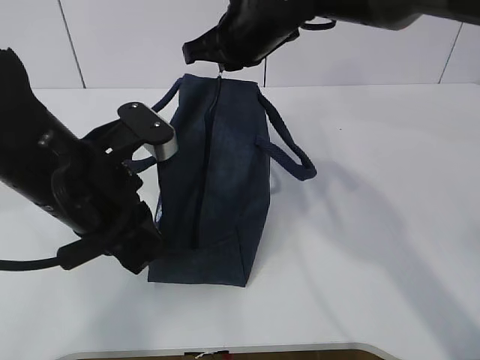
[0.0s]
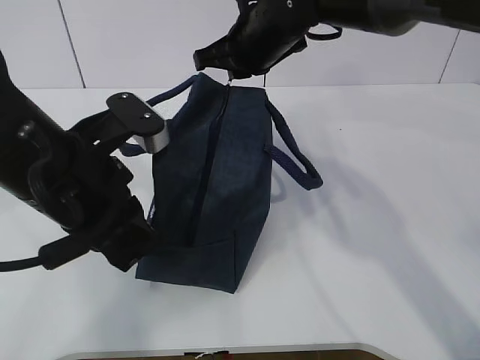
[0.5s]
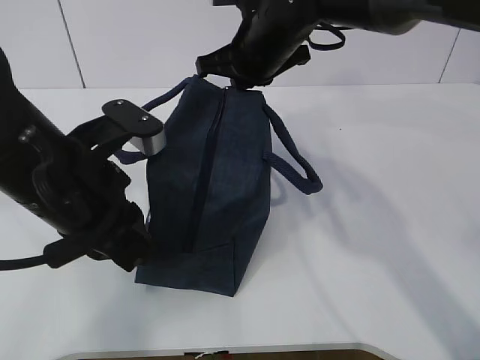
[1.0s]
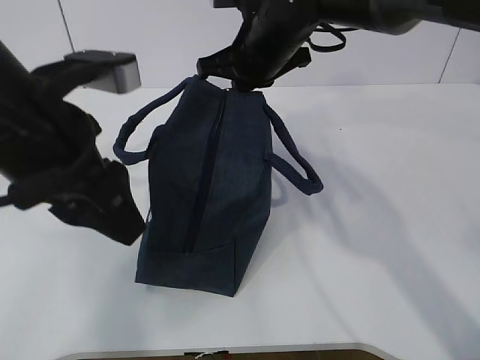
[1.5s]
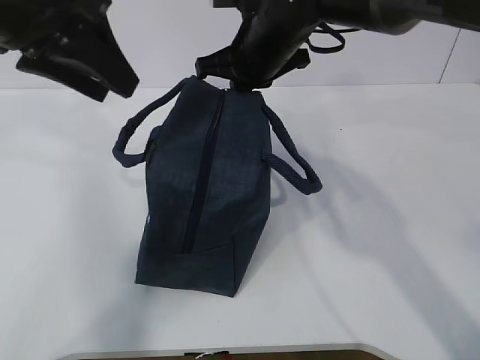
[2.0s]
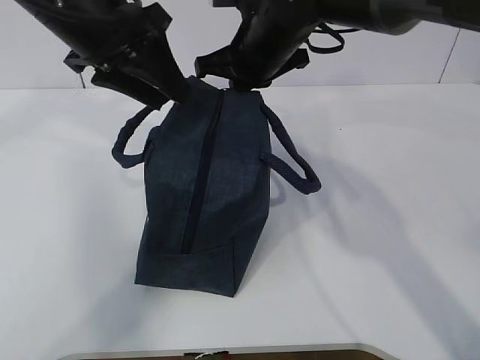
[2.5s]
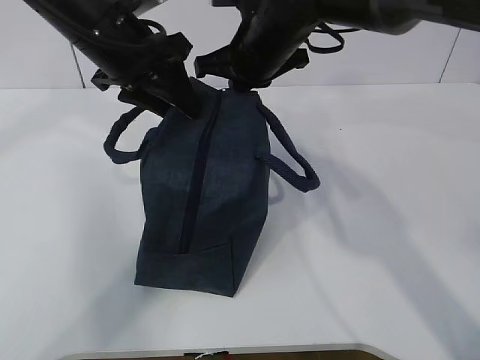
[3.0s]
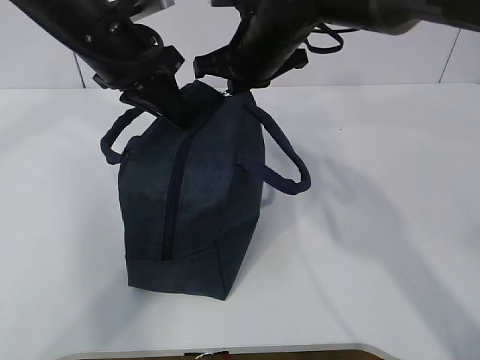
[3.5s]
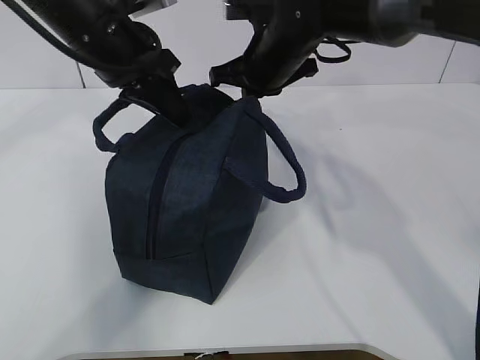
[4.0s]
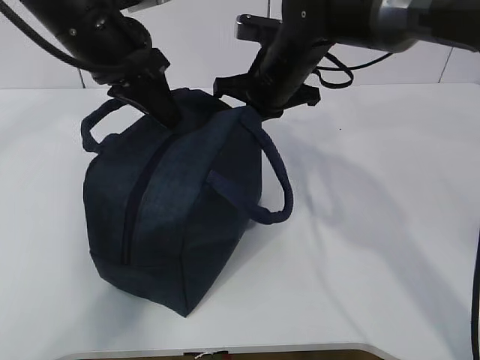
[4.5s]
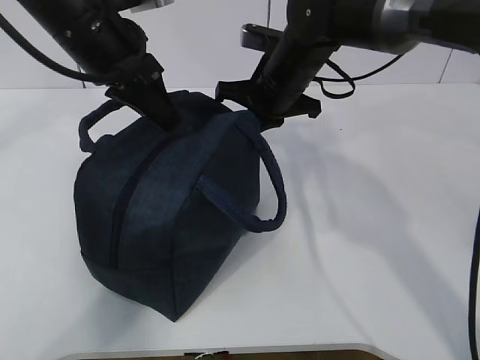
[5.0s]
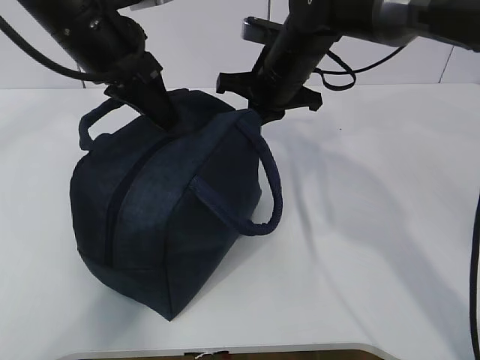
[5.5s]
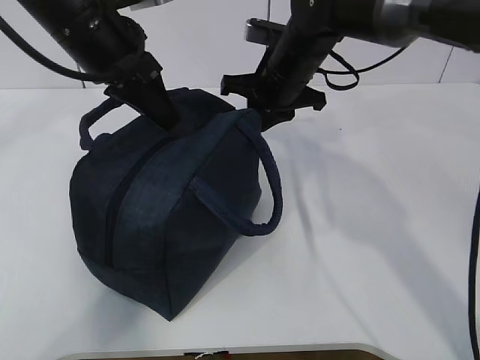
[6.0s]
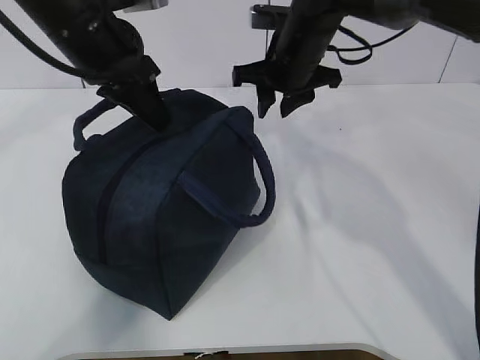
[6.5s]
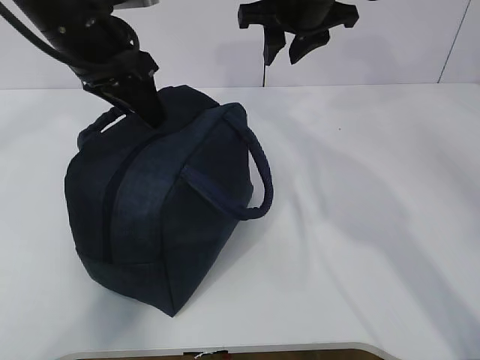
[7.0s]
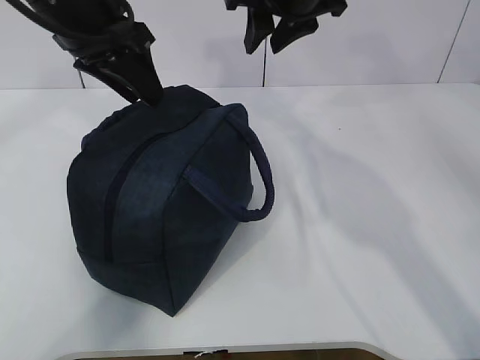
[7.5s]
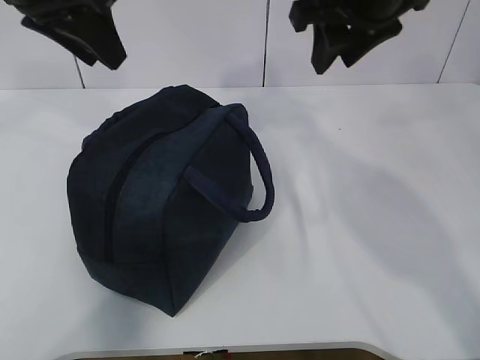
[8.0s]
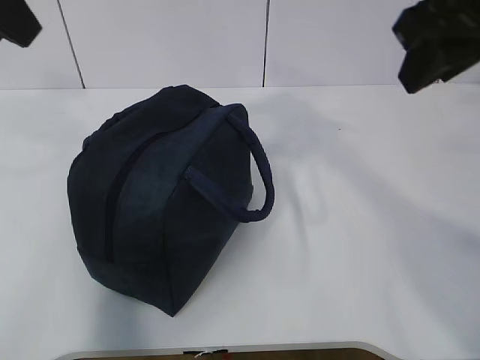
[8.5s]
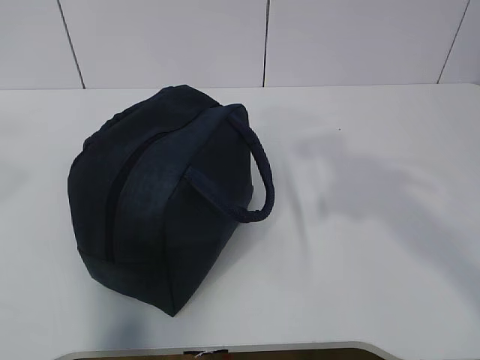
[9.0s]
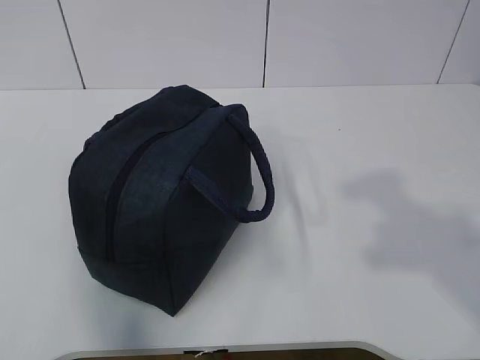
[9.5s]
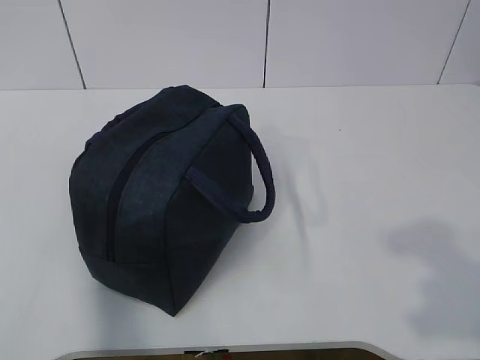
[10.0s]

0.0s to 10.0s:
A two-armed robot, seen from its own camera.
0.0s to 2.0s: The left gripper goes some 15 cm upward, and opens its fingers.
2.0s to 4.0s: The left gripper is displaced forward and downward by some 10 cm, and closes up.
4.0s to 6.0s: The right gripper opens.
6.0s to 8.0s: The left gripper shifts approximately 5 cm upward, and opens. Meanwhile the right gripper goes roughly 15 cm upward and backward.
8.0s to 10.0s: The left gripper travels backward and to the left by some 40 cm; the right gripper moves backward and to the right, some 40 cm.

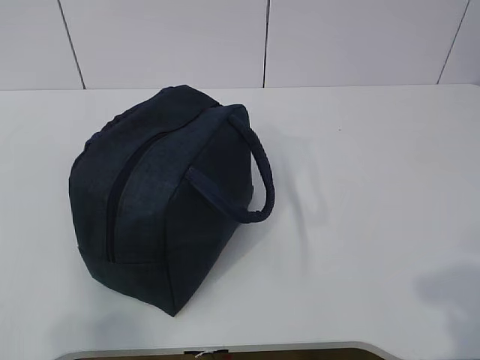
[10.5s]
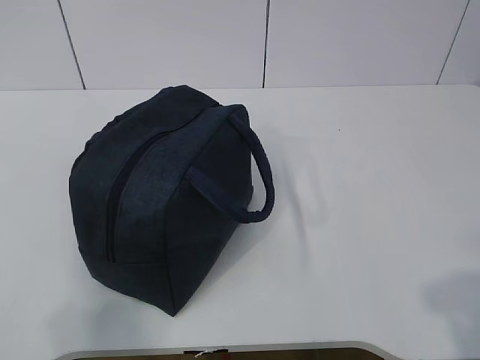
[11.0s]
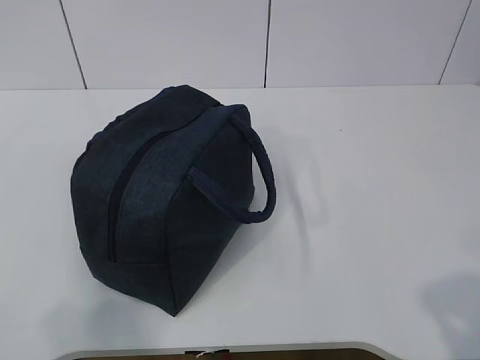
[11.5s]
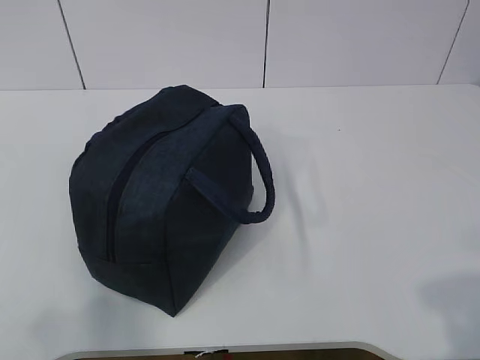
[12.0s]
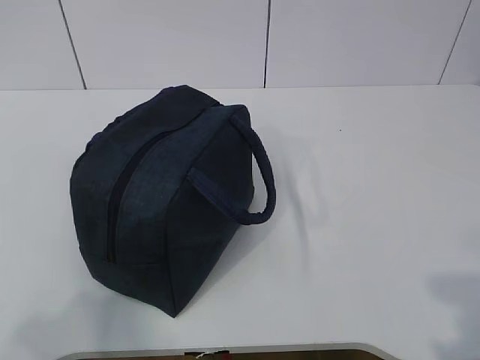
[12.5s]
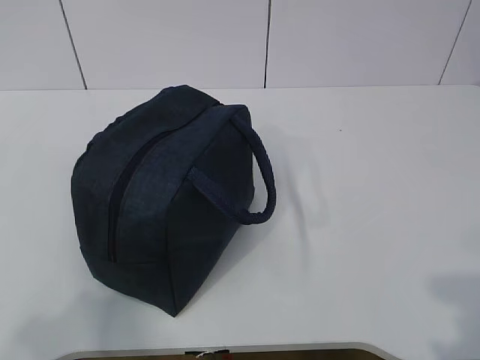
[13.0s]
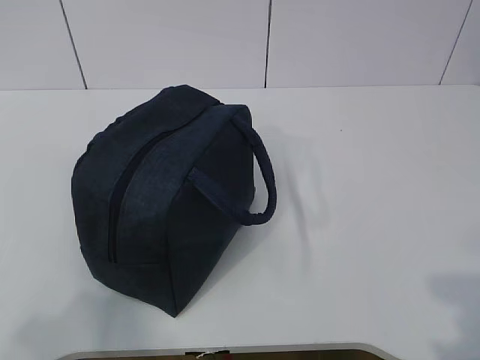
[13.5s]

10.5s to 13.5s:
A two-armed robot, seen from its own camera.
12.0s to 13.5s: The grippers move only a little.

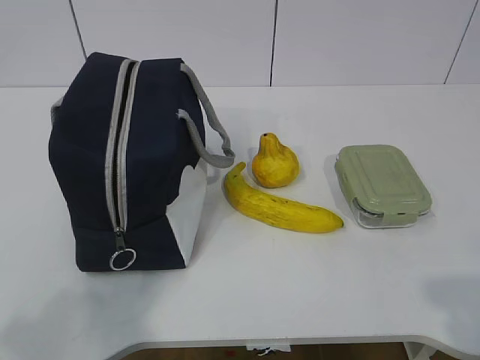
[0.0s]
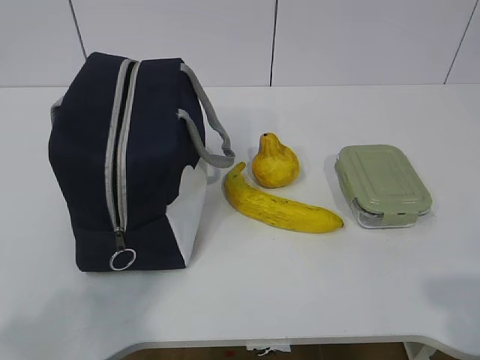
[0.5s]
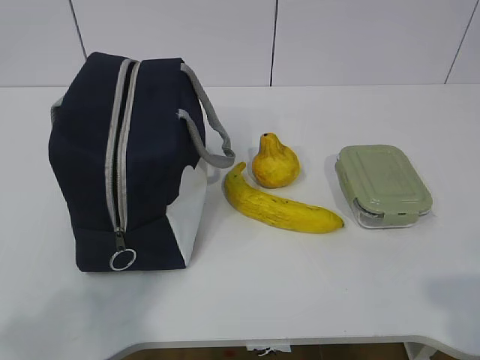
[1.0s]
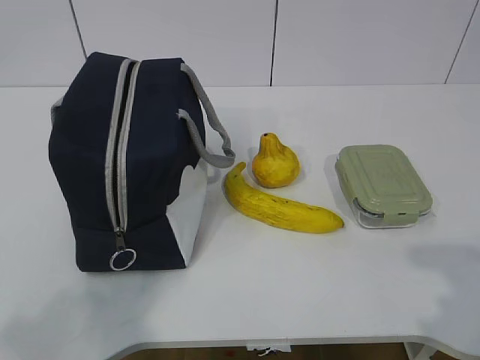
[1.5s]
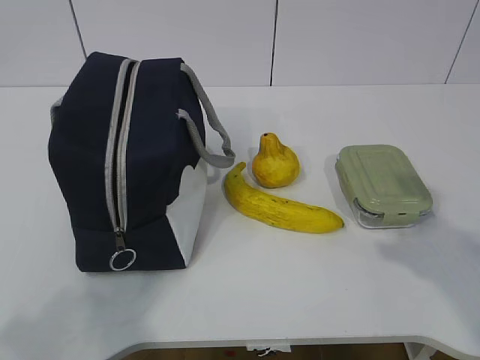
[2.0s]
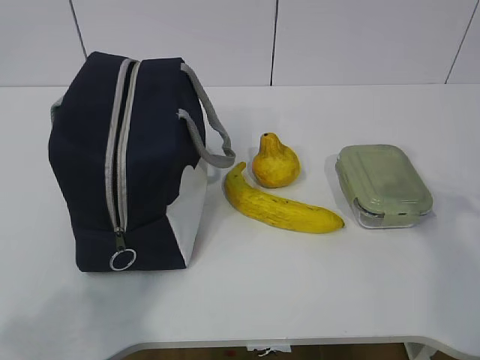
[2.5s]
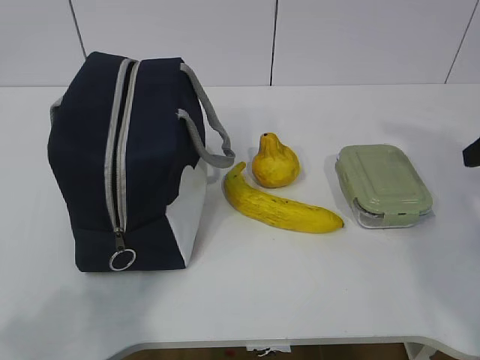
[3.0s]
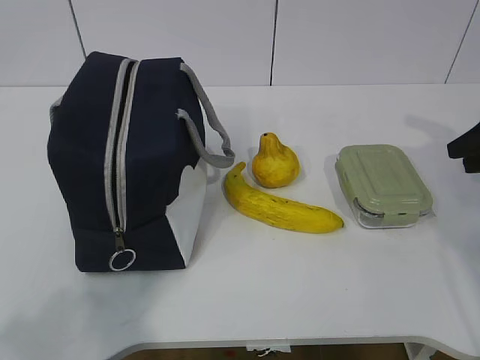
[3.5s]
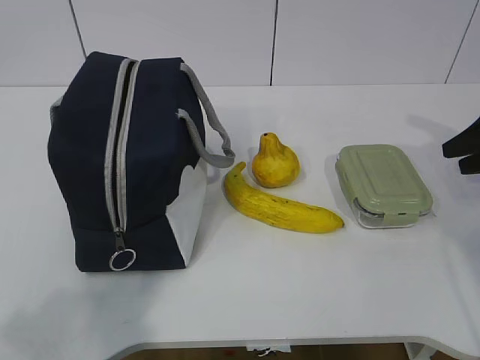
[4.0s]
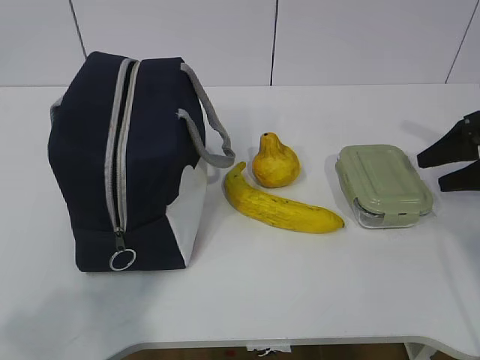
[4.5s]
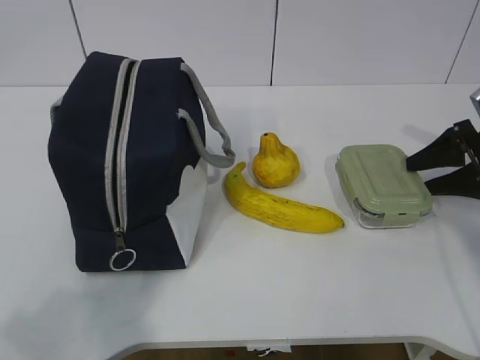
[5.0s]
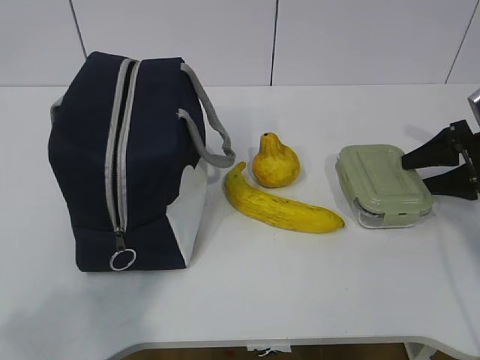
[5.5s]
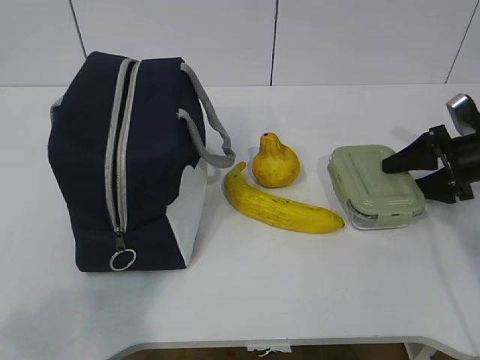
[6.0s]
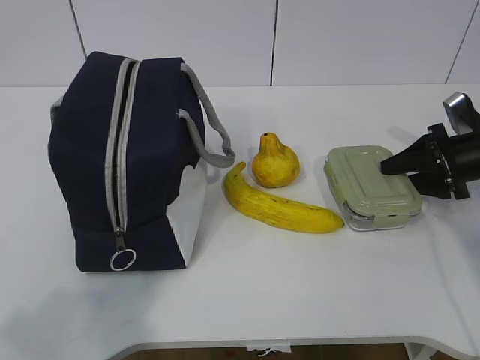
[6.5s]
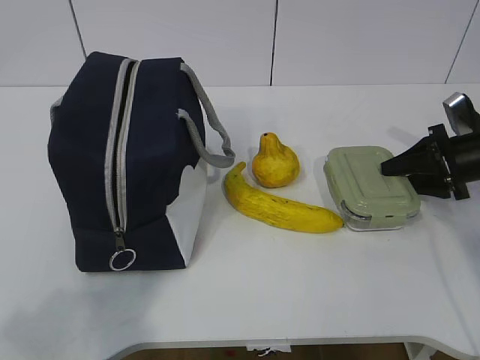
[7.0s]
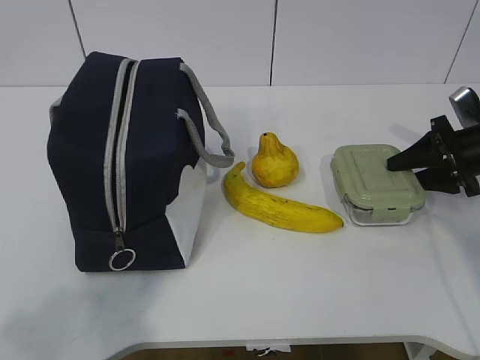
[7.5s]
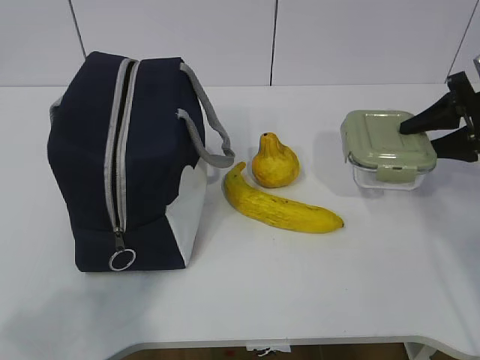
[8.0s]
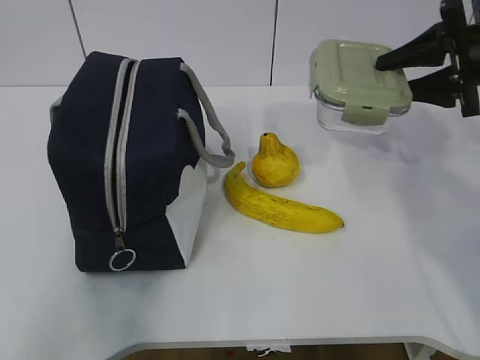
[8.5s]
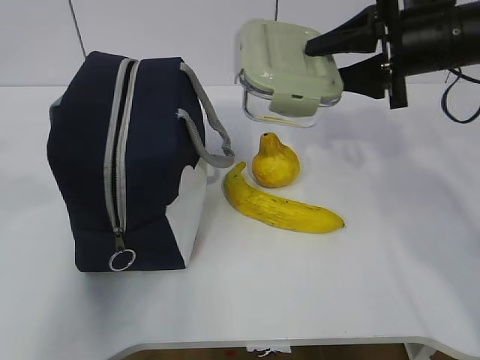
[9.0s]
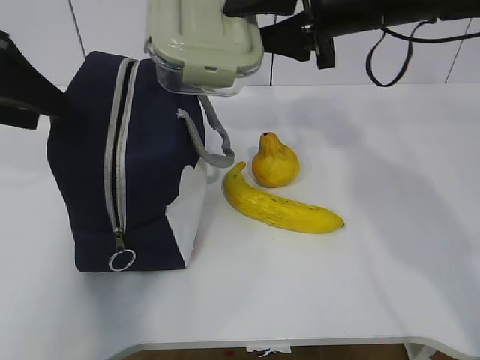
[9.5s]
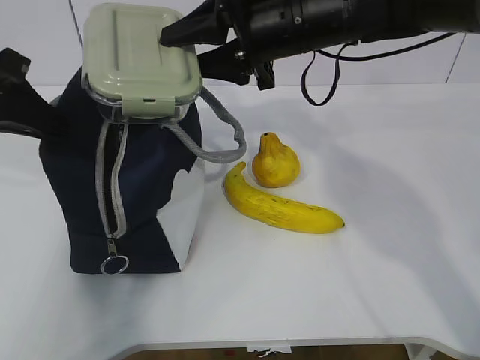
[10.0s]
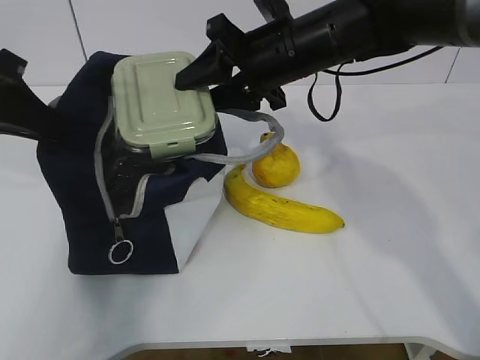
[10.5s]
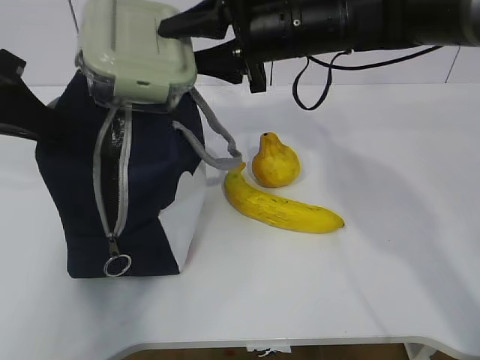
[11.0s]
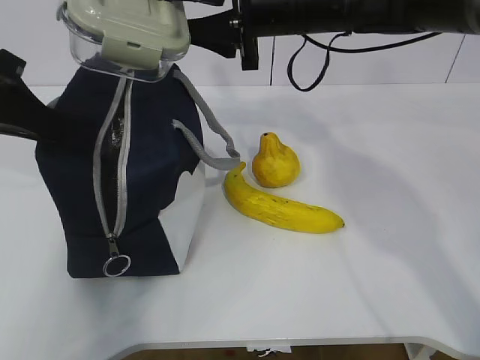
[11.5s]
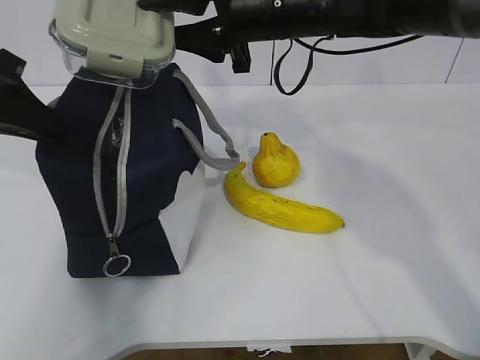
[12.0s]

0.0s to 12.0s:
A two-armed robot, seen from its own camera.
Step, 0.0s to 7.0s: Grasp the box with the right gripper.
2.0s to 4.0s: The right gripper heads forward and to the right, covering about 25 cm.
4.0s to 6.0s: The right gripper moves downward, approximately 5 cm.
6.0s to 8.0s: The right gripper travels upward by approximately 10 cm, and closes up.
8.0s to 10.0s: The left gripper travels forward by roughly 30 cm, and closes its fingers, while the right gripper shifts about 30 cm to the left.
10.0s to 12.0s: There are only small adjustments of the grippers.

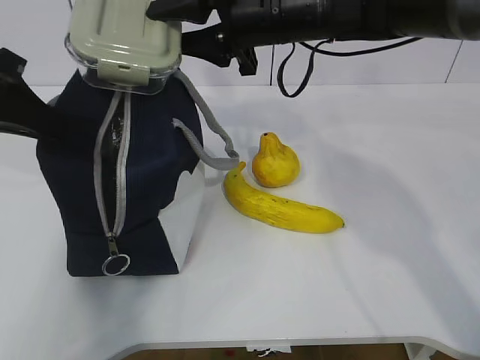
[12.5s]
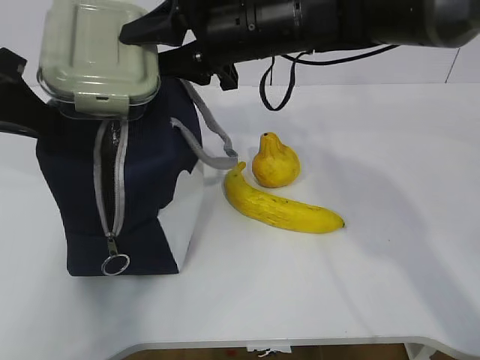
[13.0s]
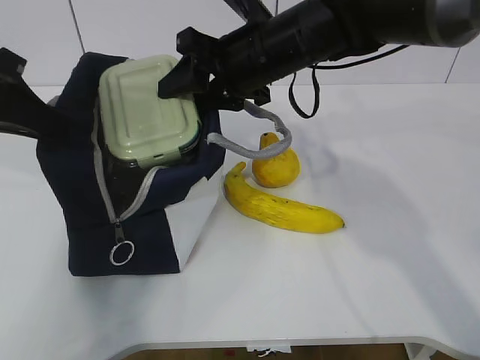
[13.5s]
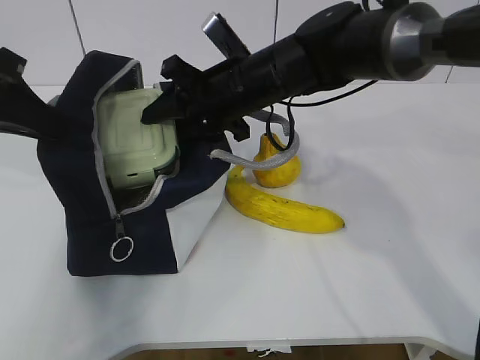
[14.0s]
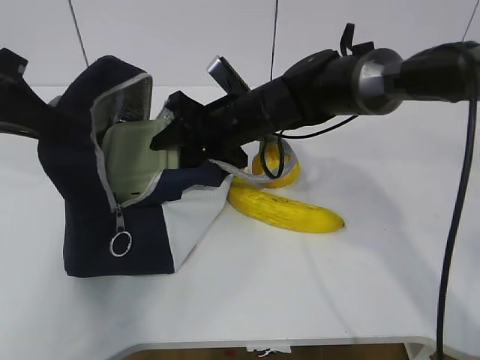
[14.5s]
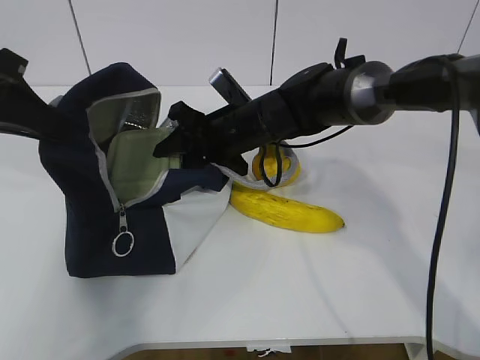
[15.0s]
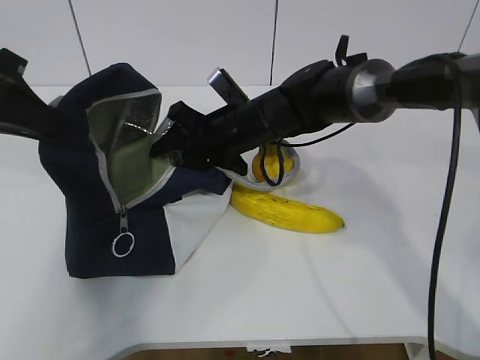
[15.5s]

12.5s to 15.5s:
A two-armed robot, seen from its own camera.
12.5s to 14.0s: The right gripper moves downward, about 10 cm.
14.0s to 15.5s: The right gripper shifts roughly 5 cm downward.
